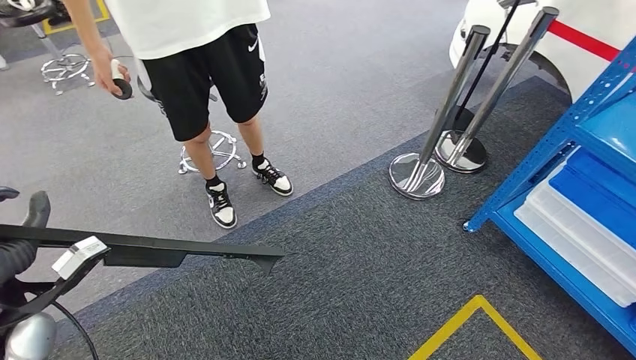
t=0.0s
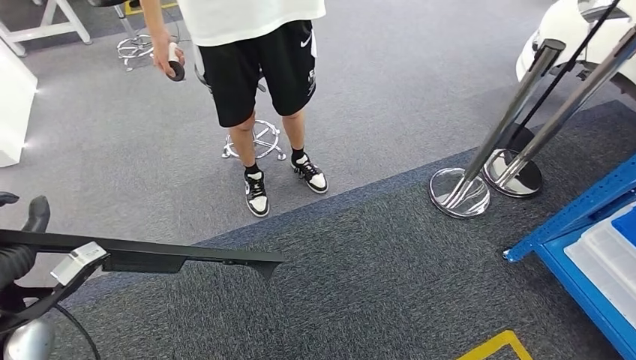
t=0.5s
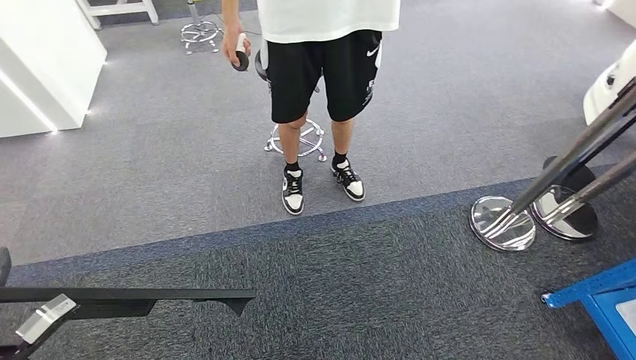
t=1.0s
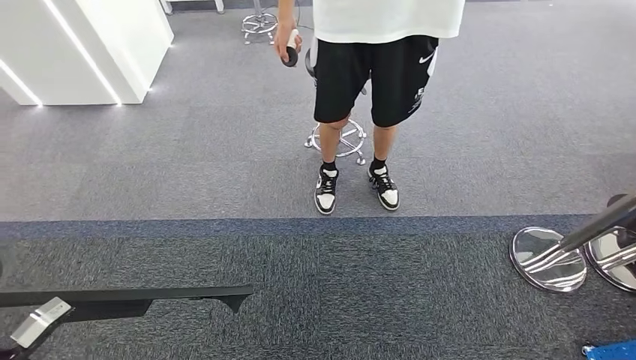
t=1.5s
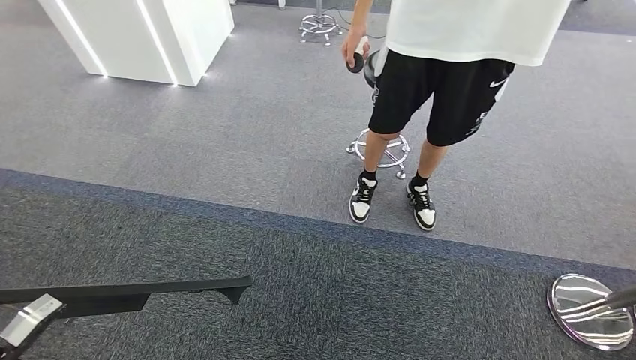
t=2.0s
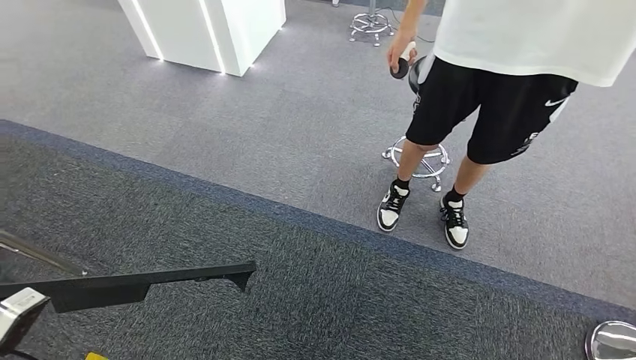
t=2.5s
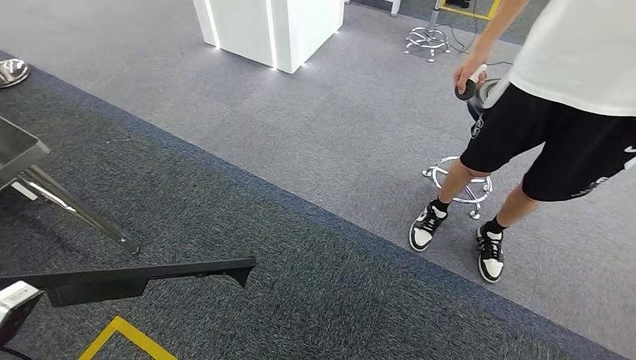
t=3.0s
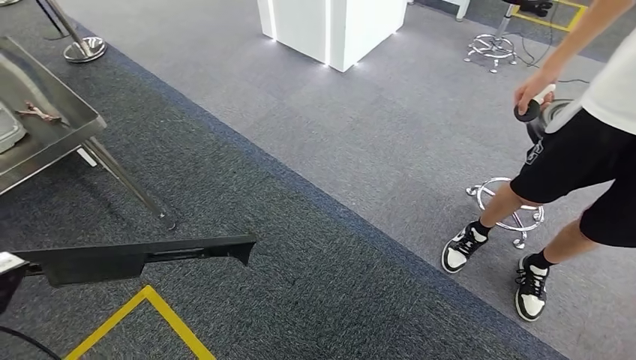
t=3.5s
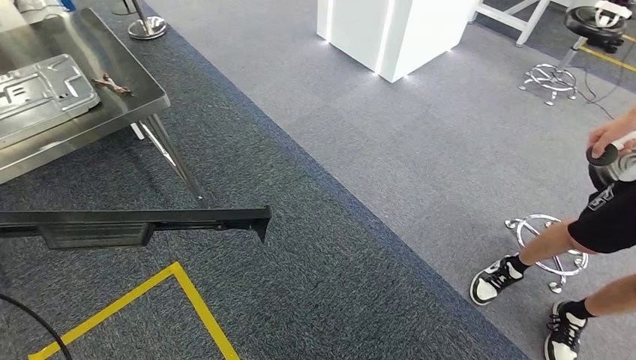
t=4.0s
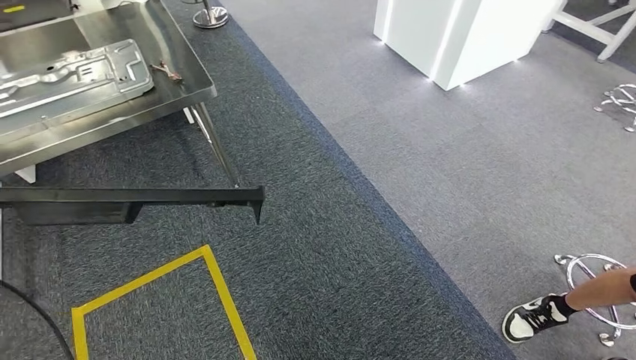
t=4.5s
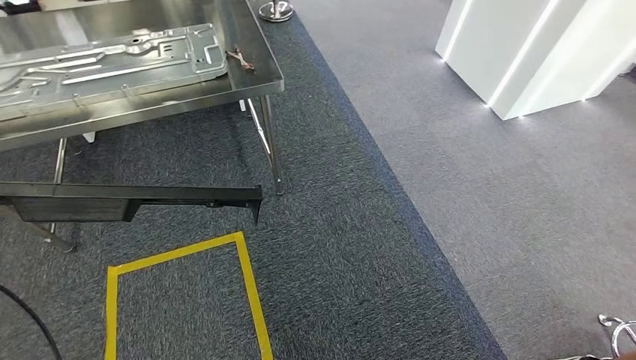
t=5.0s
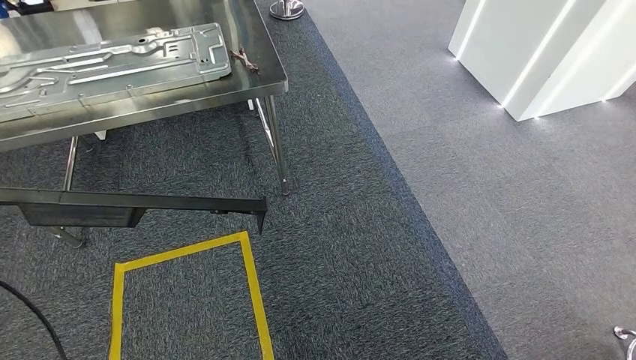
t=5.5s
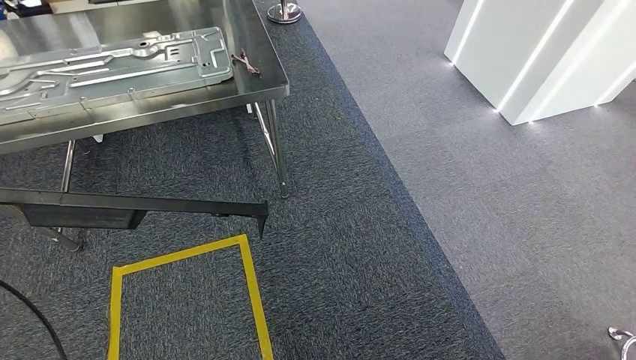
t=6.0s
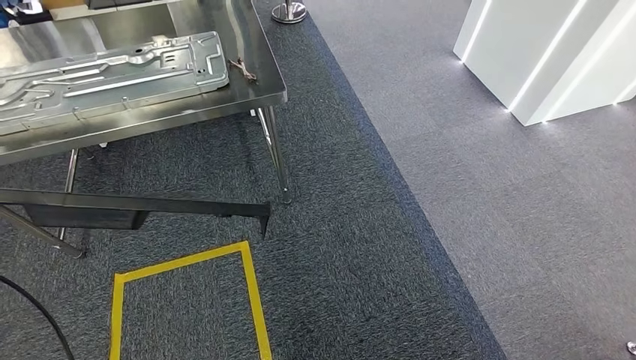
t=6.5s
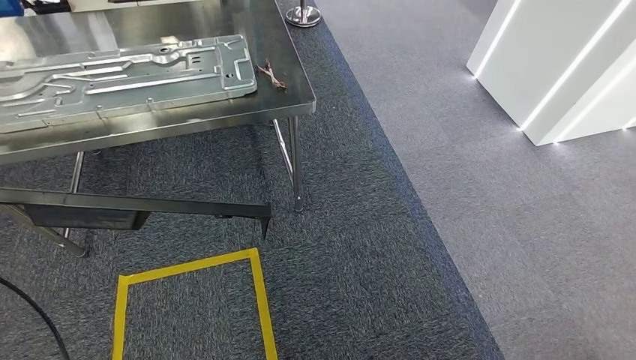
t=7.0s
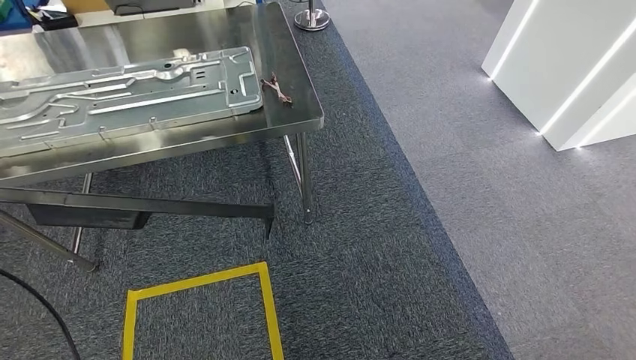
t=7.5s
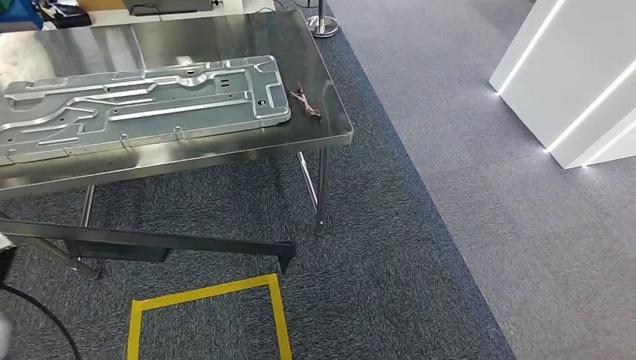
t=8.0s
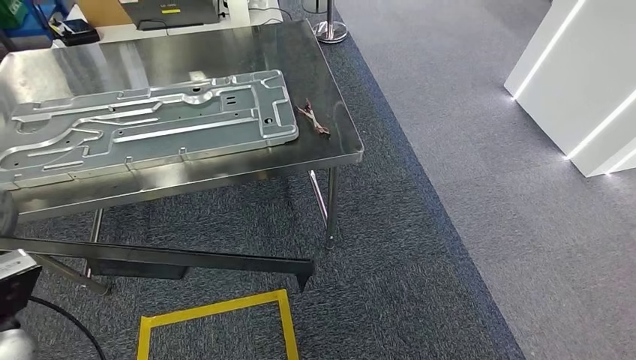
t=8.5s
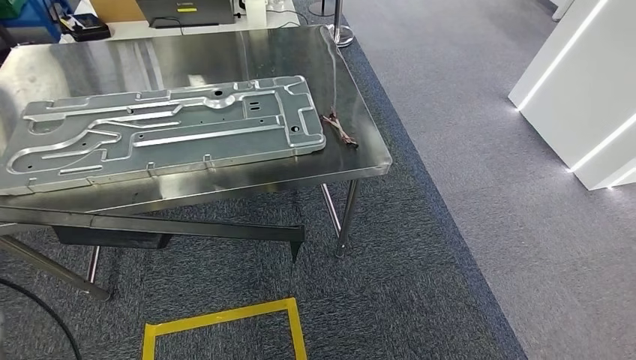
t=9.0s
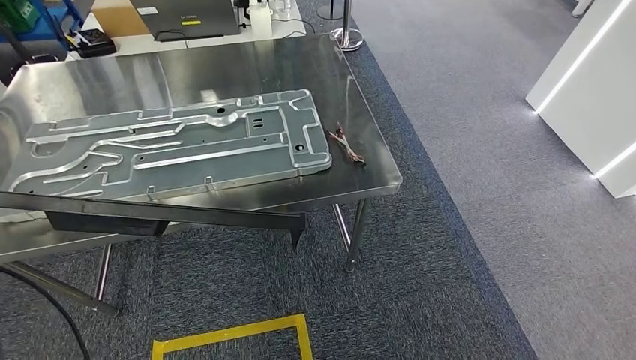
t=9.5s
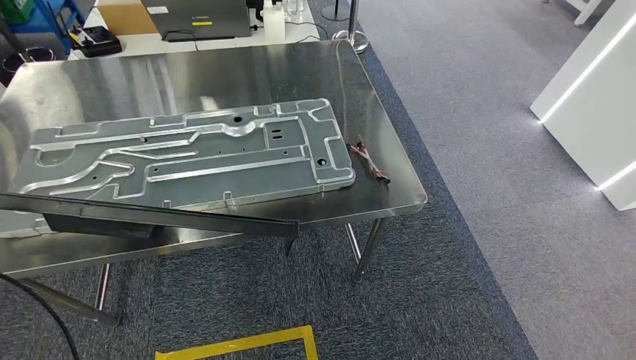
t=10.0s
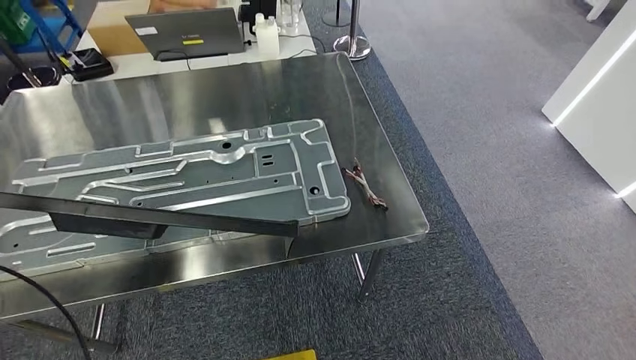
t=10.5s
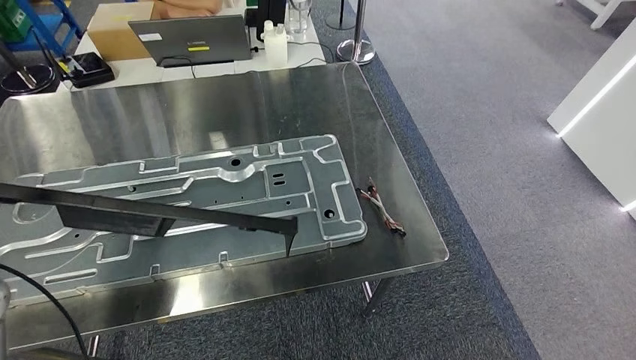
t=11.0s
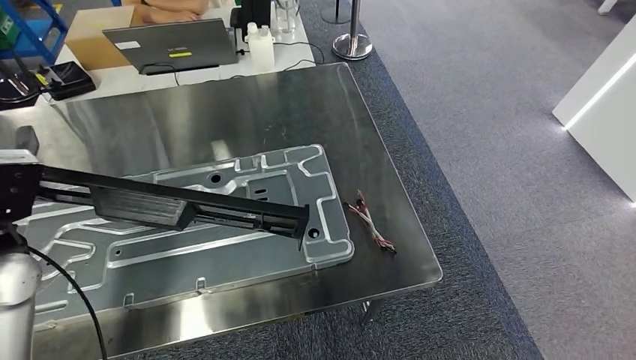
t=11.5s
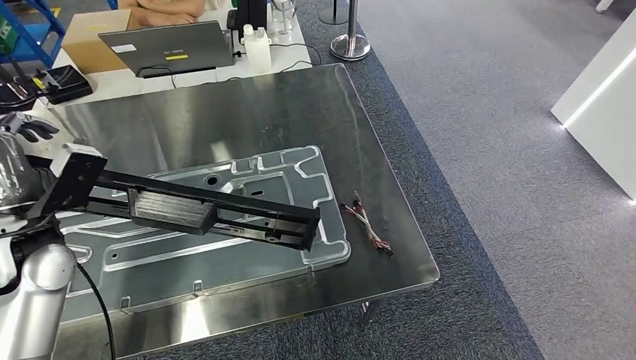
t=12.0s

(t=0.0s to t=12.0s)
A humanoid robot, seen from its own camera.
Step, t=0.0s - t=8.5s: Move the large material to the workbench.

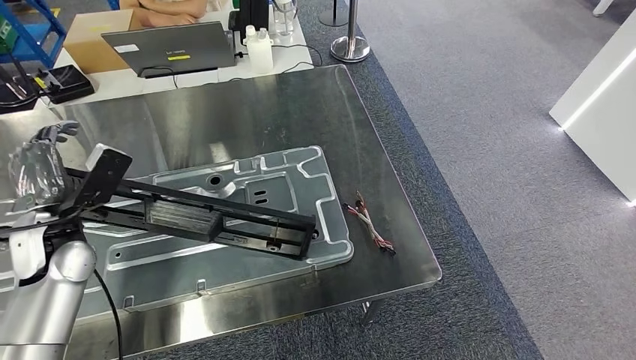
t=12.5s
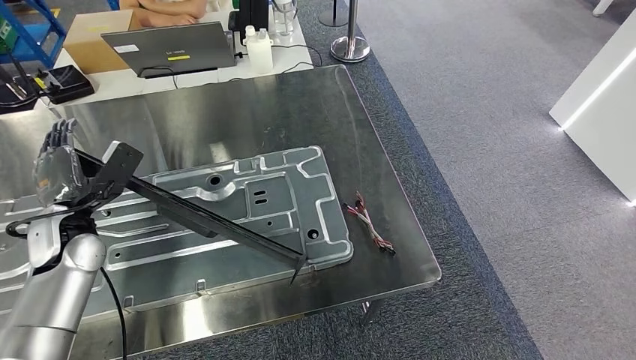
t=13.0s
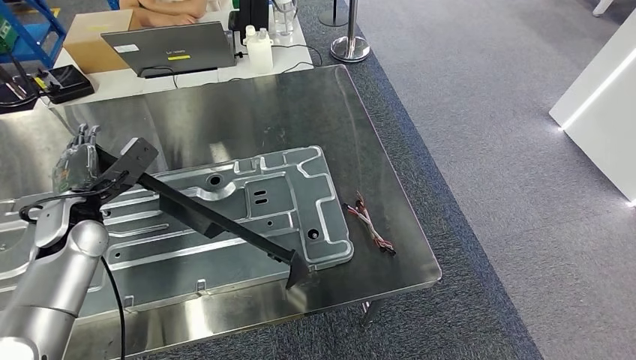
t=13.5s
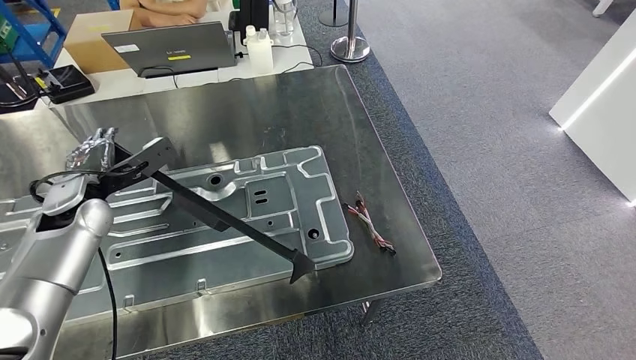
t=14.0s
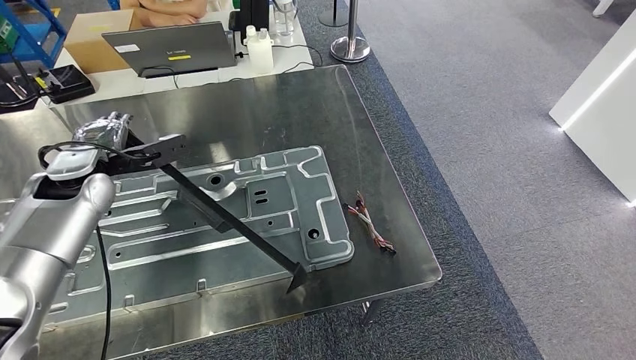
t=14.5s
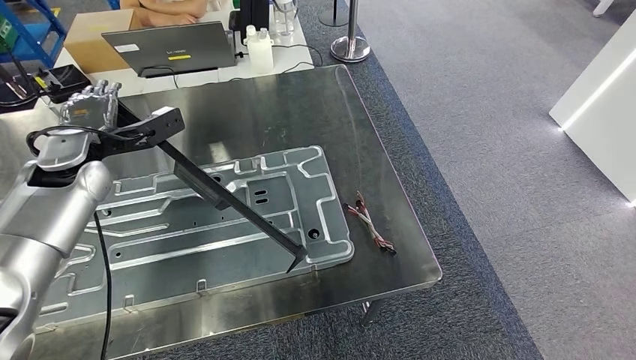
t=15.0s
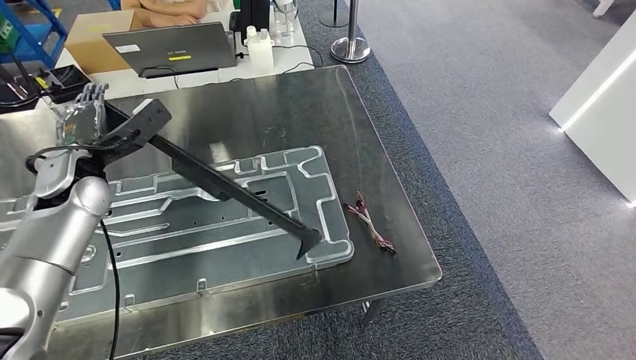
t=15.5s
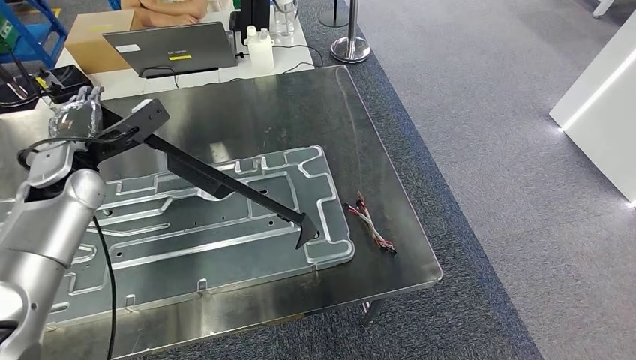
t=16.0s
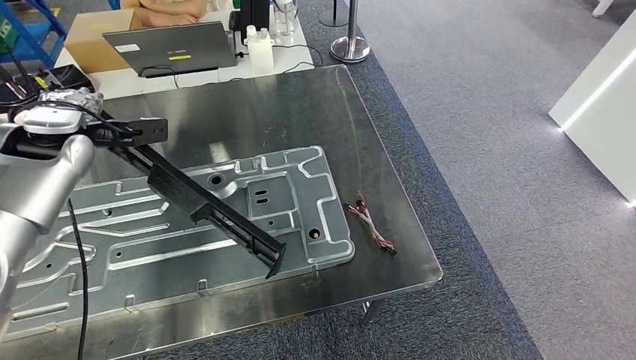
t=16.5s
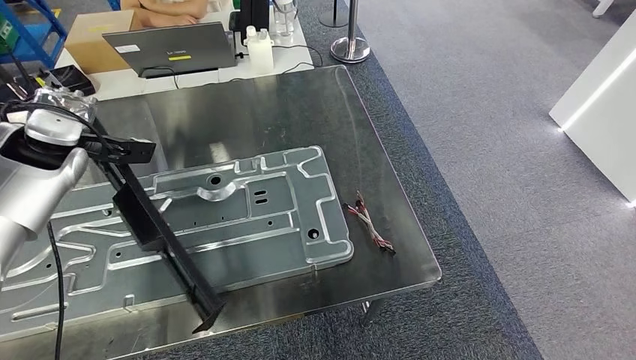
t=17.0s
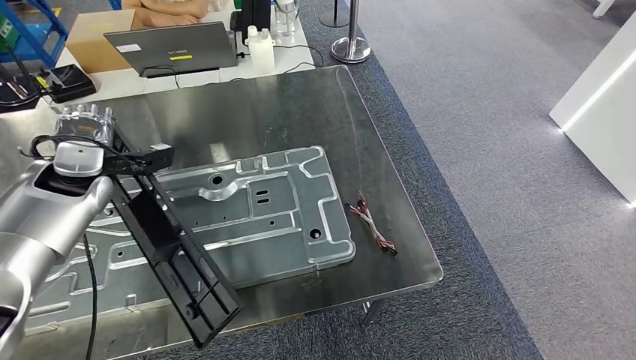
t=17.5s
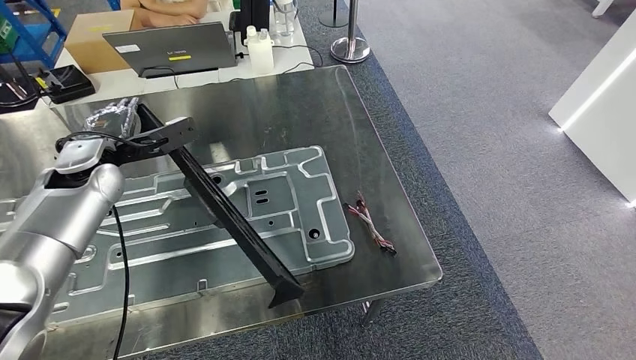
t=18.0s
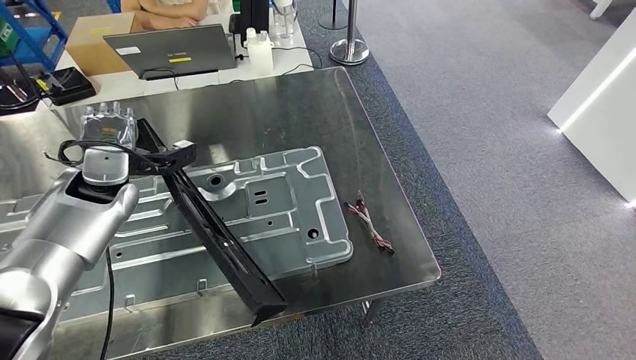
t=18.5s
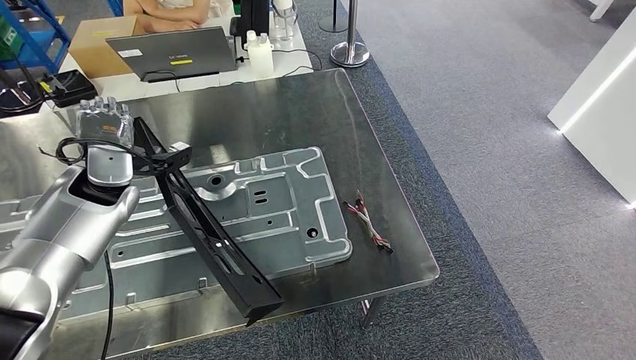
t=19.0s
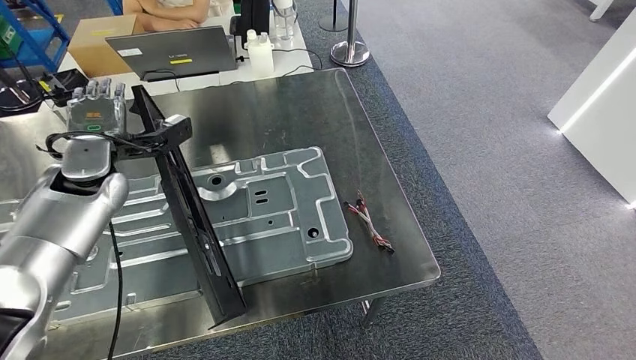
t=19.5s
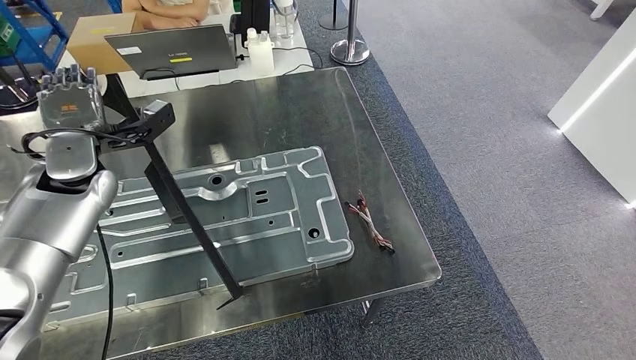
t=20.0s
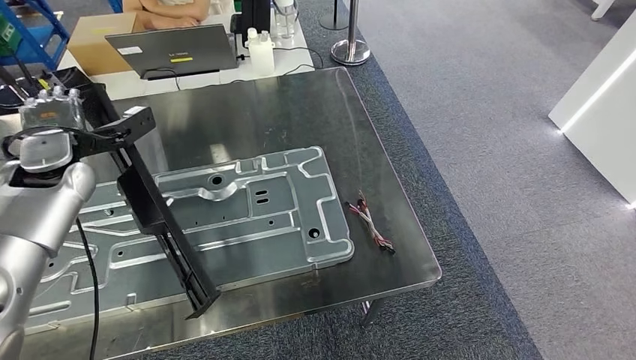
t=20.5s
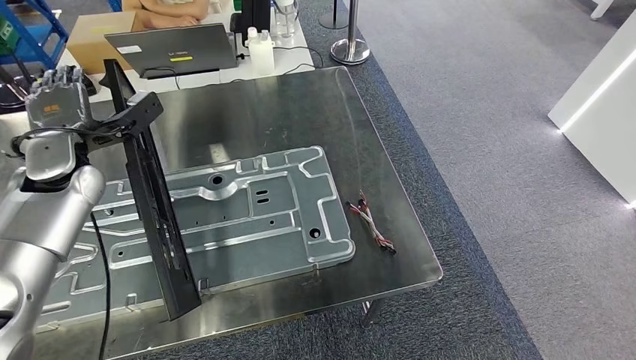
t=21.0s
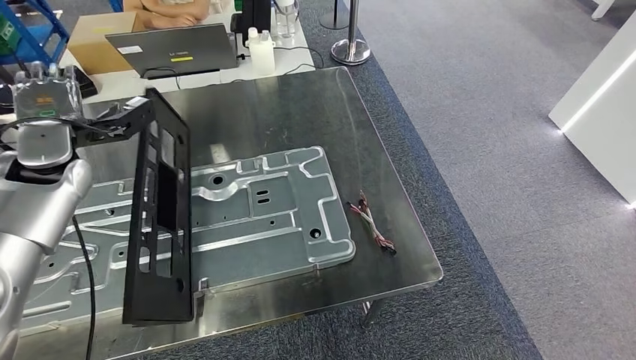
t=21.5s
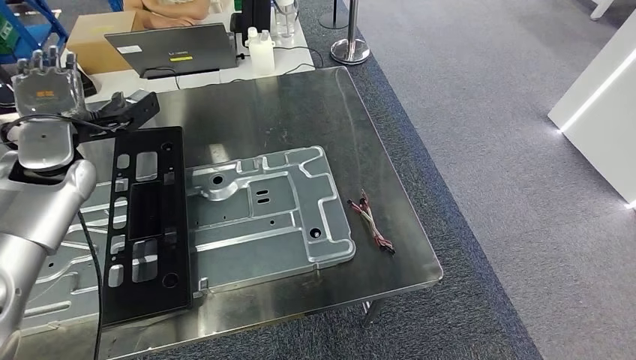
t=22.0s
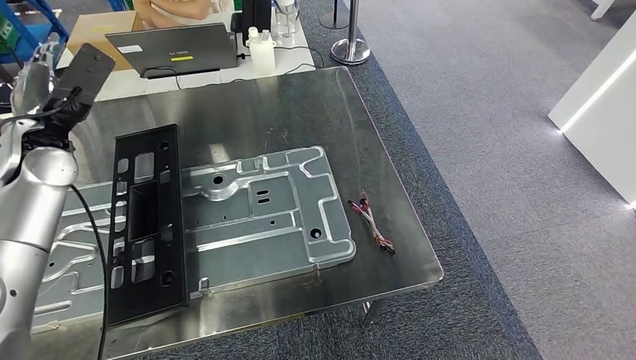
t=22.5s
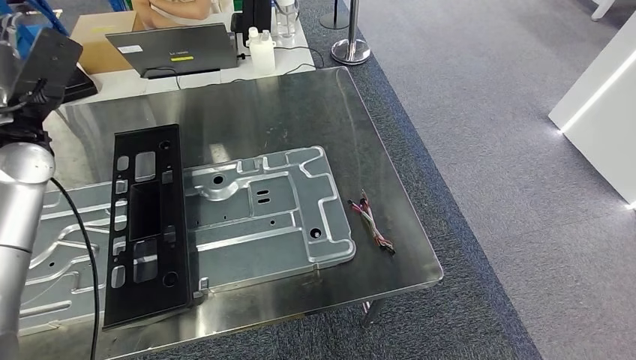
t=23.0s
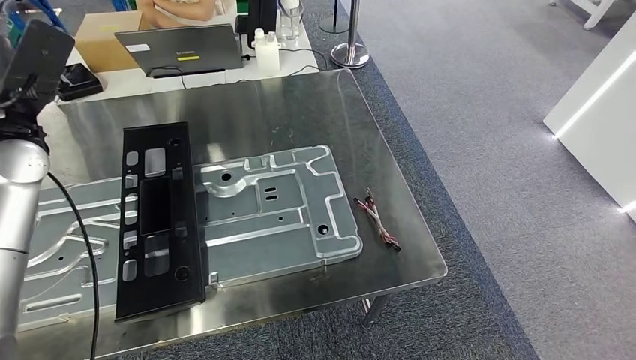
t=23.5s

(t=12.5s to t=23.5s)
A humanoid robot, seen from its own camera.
t=12.5s - t=14.5s: The left hand moves forward and upward, about 10 cm.
t=20.0s - t=21.5s: The hands move only a little.
